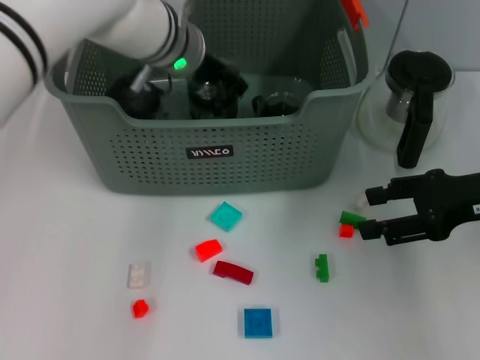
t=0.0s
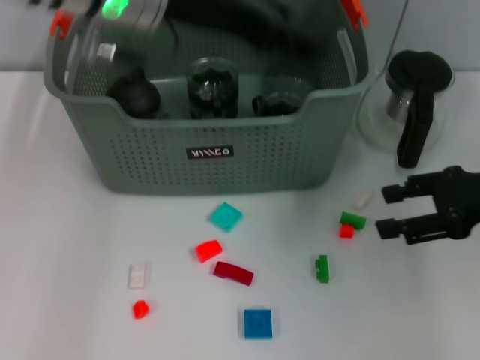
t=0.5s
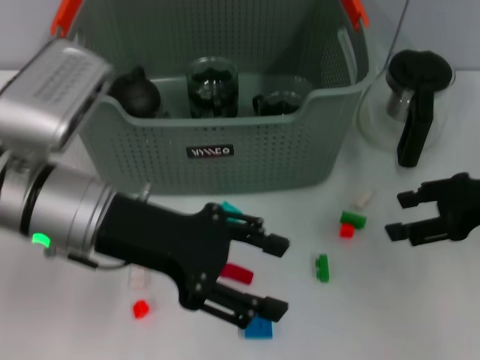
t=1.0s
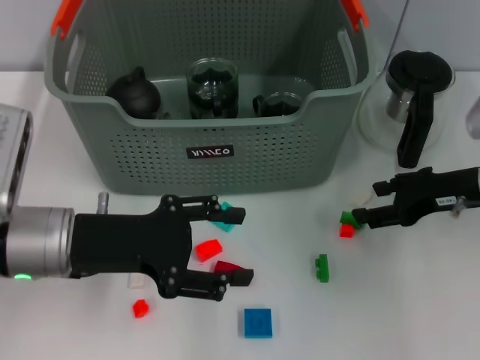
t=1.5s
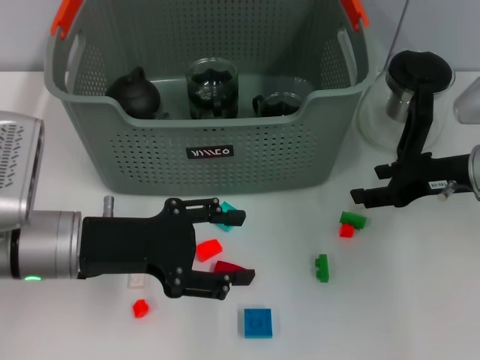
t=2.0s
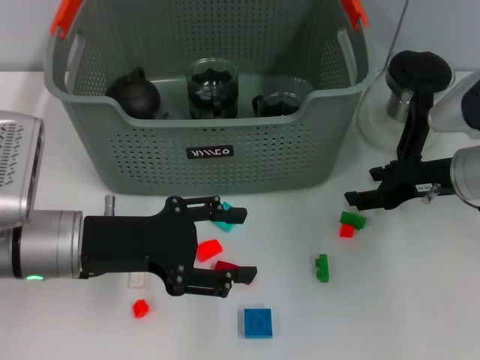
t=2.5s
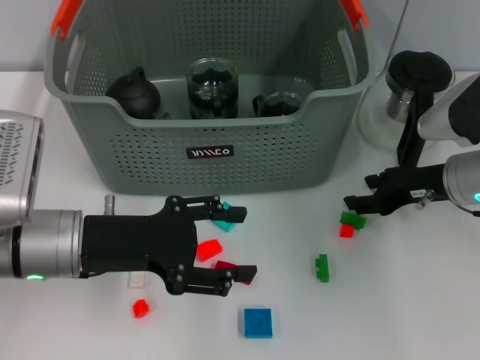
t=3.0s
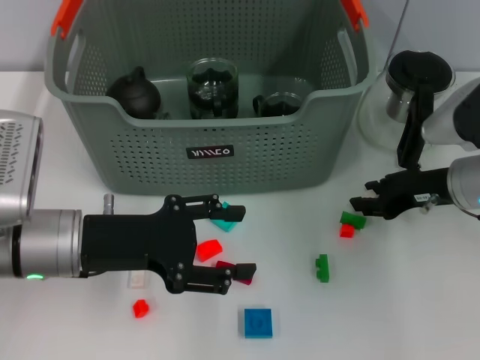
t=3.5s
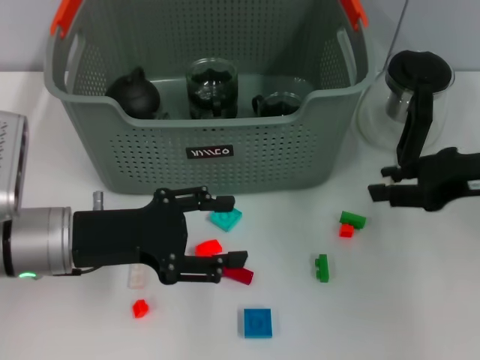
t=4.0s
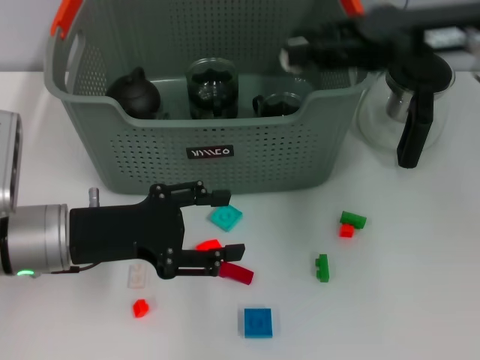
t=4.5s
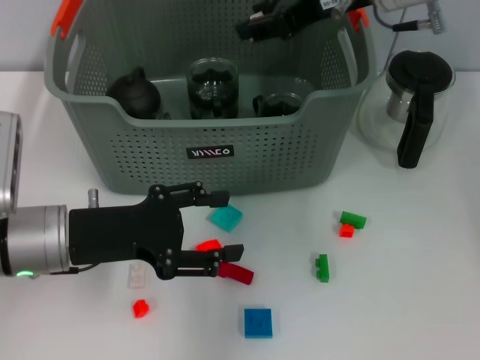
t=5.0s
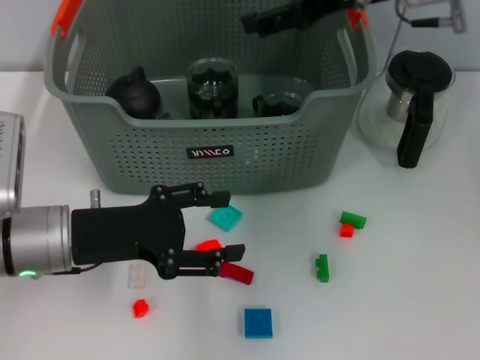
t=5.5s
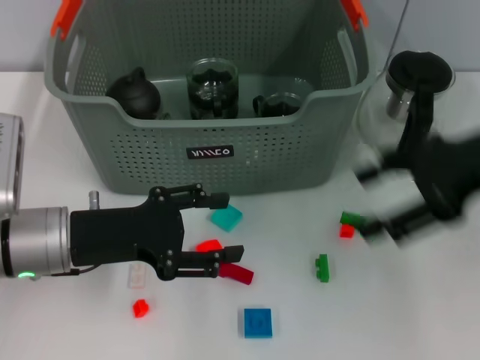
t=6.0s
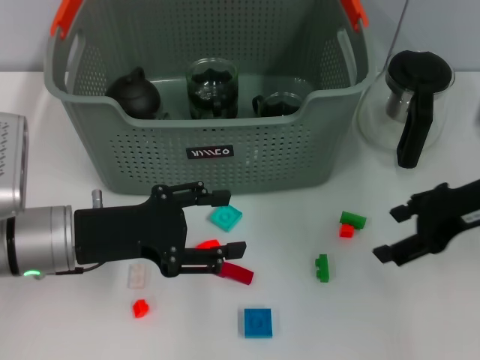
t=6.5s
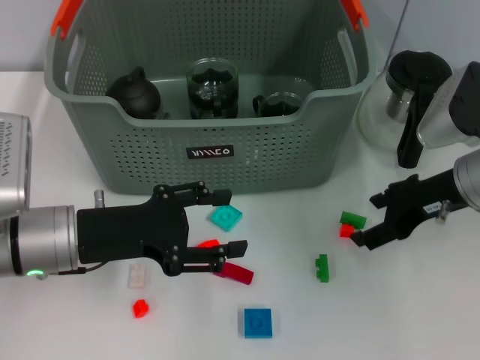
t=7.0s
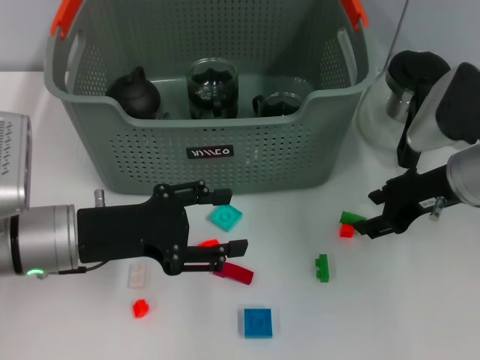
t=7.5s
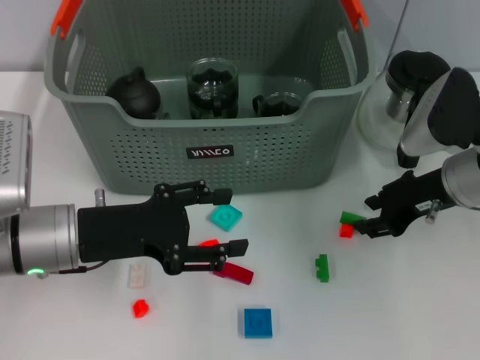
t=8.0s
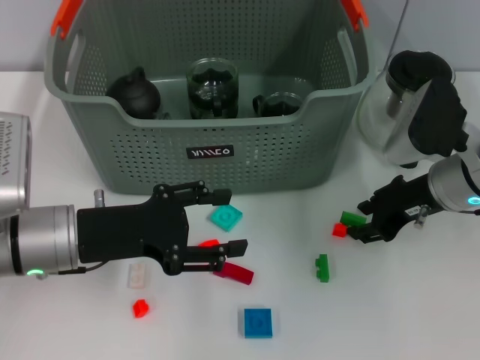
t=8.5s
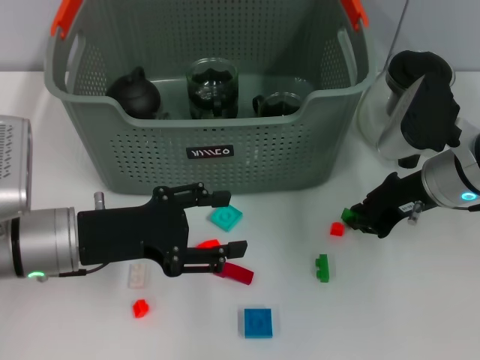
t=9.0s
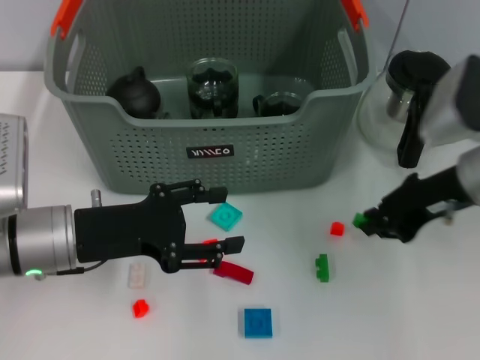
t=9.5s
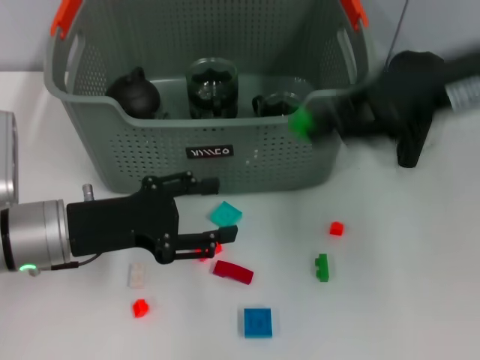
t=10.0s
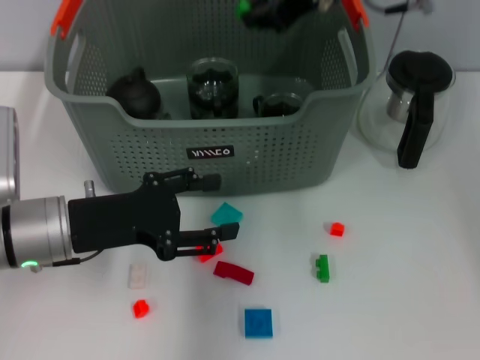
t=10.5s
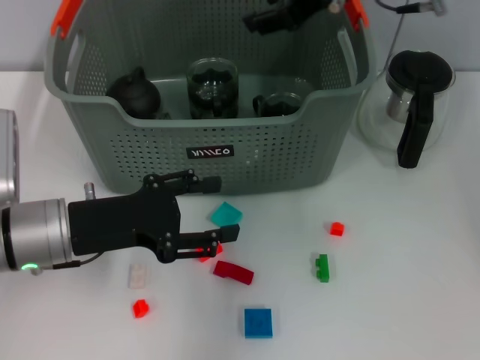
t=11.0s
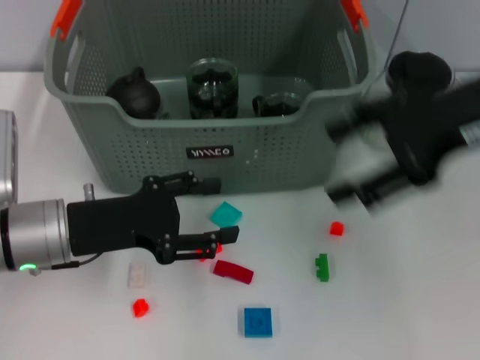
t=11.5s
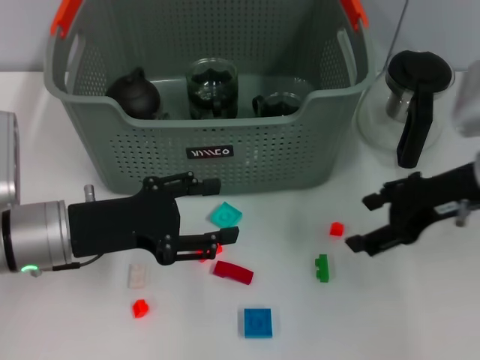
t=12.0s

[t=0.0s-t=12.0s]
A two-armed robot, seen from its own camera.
Task of the whole recording: pick up the teacup on the table and place it into the storage bin, pick up the block on the table and place it into the storage bin.
Step, t=0.5s to t=3.0s: Grasp the white block with right gripper.
Step, t=3.5s to t=5.0s: Place the white block in the storage box with right gripper.
Step, t=5.5s to t=9.0s: Grasp the green block with right gripper.
Step, t=9.5s to t=10.5s: Place the green block in the storage box with right gripper.
t=0.0s to t=2.0s: The left gripper goes some 25 cm backward, to the left and downward, and opens up, while the right gripper moves approximately 5 cm.
t=2.0s to t=4.0s: The right gripper travels upward by about 5 cm, and closes its fingers.
t=4.0s to t=6.0s: The right gripper heads upward, covering some 10 cm, reaches roughly 15 cm to the left, then returns, and opens its fingers.
t=6.0s to t=8.0s: The right gripper is displaced downward by approximately 10 cm, and closes.
t=8.0s to t=10.0s: The right gripper moves upward, about 15 cm, and closes up.
t=10.0s to t=12.0s: The right gripper shifts roughly 10 cm downward, moves approximately 10 cm forward and comes back, and opens.

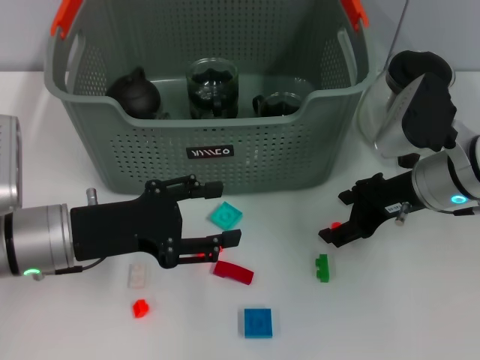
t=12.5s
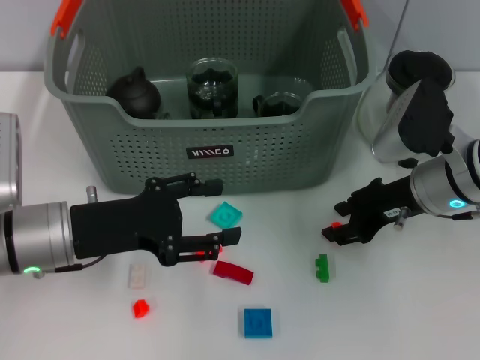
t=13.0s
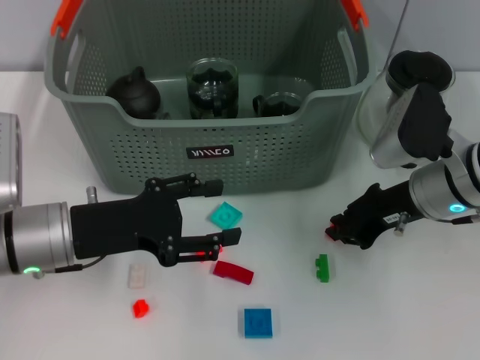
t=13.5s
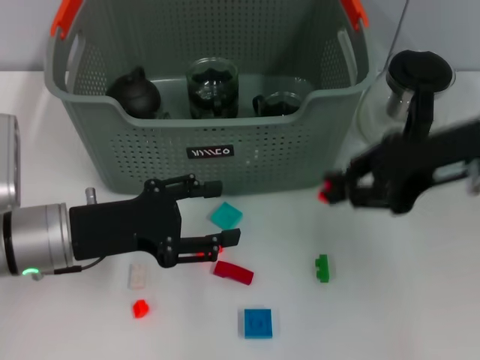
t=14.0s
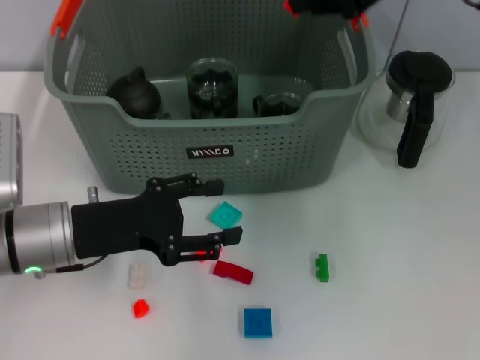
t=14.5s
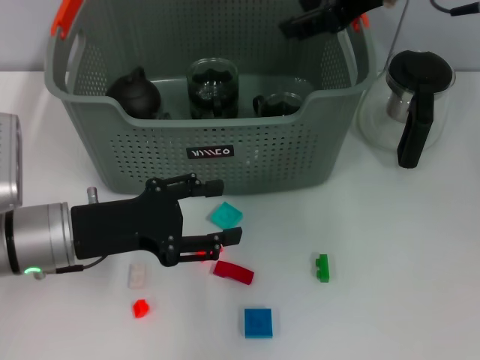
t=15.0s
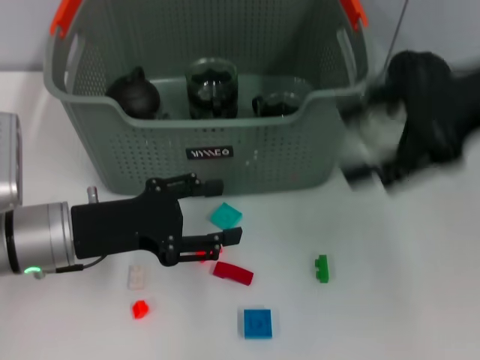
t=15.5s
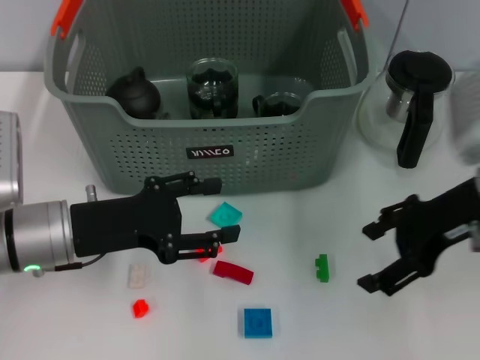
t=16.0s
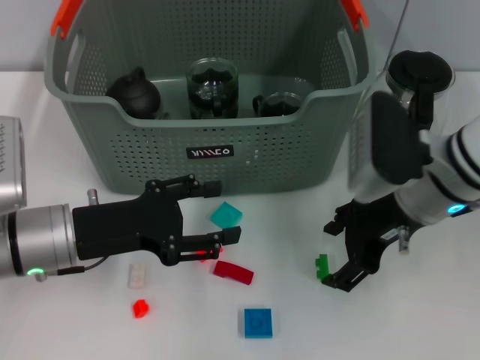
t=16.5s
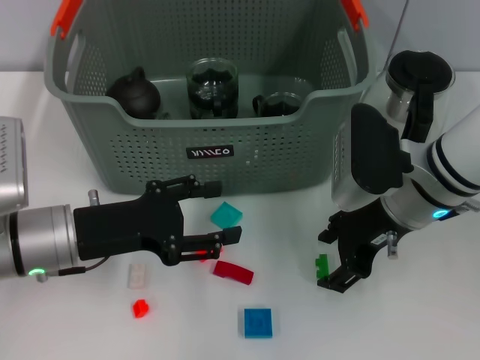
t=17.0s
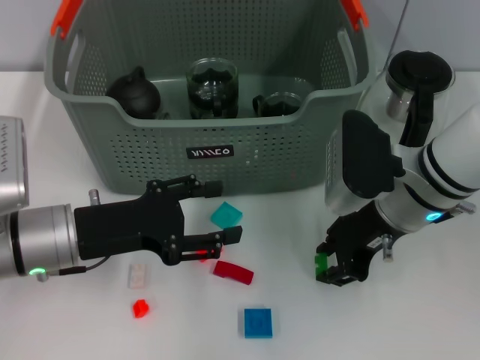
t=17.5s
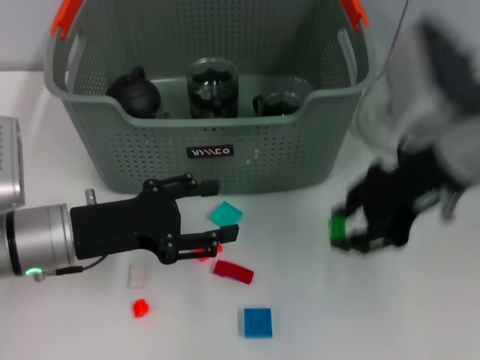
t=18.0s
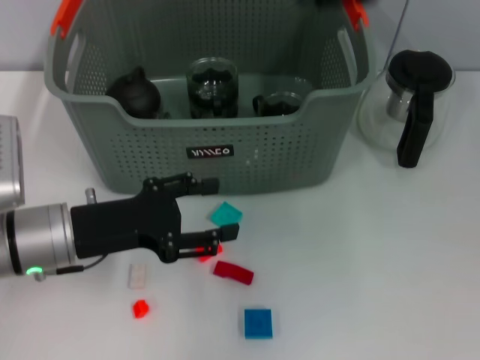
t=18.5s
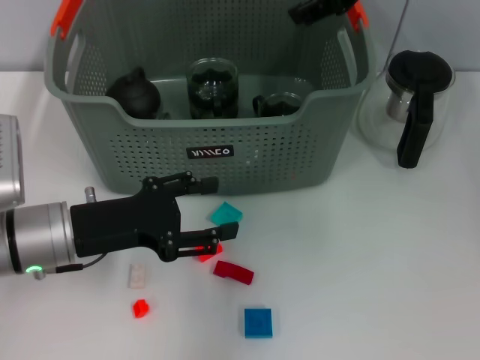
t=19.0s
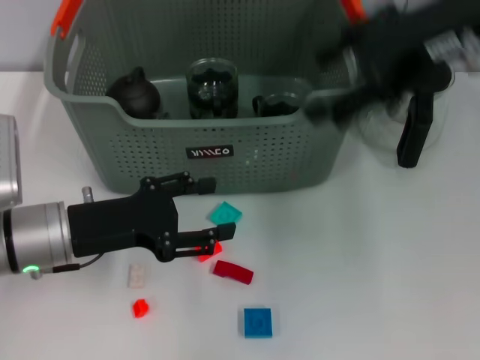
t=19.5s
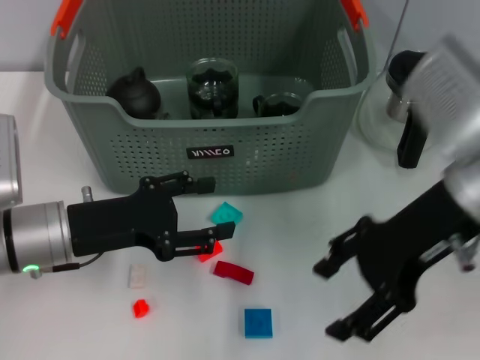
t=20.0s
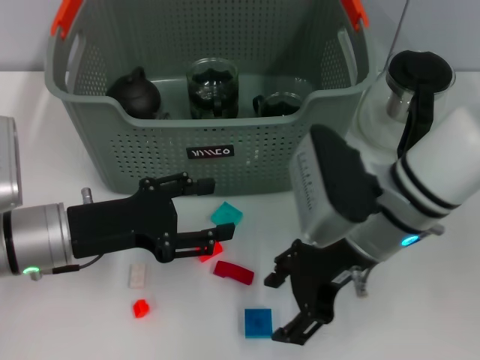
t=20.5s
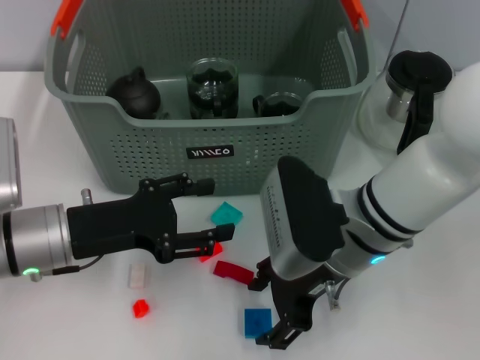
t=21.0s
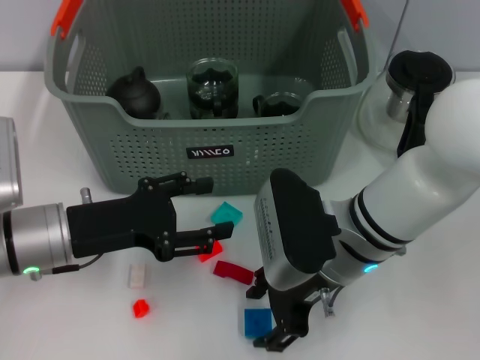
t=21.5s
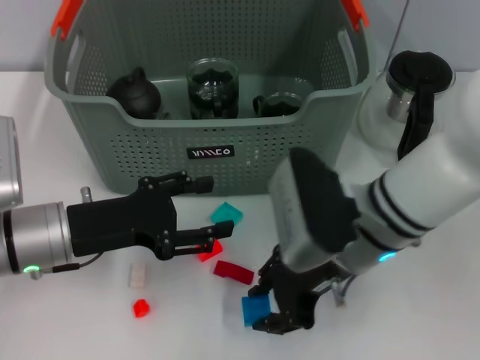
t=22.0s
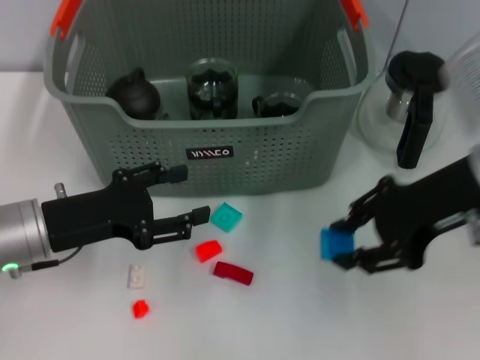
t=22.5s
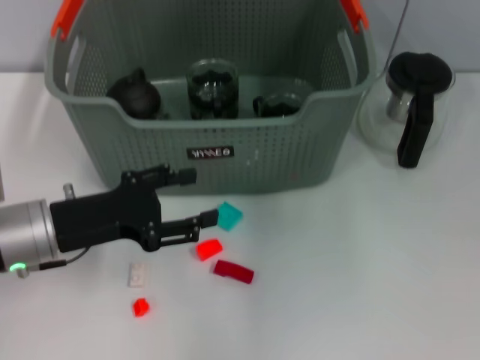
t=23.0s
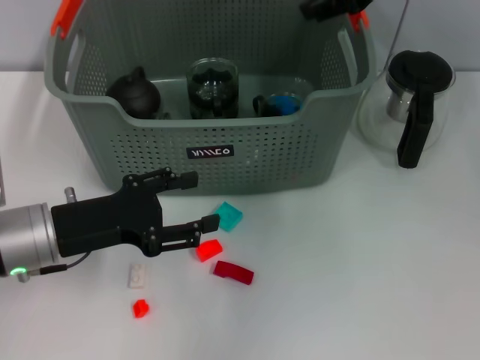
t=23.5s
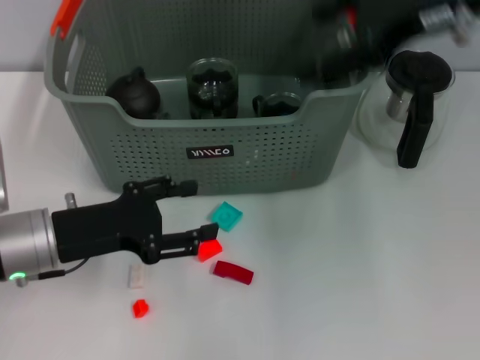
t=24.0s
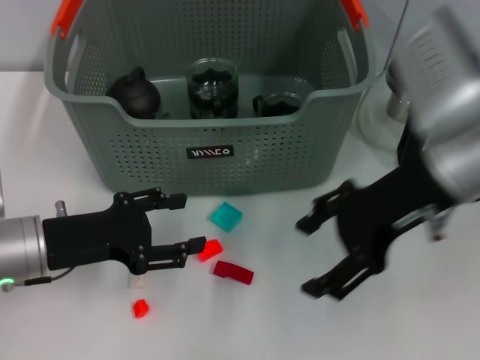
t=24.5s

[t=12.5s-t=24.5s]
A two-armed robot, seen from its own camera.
Task of the whole recording: pick up the teacup on the table and place it into the storage bin, pick up the block on the table and place it into the storage bin.
Step, t=14.0s to t=14.5s: Place the orange block in the storage box with right gripper.
Step, t=15.5s to t=17.5s: Grasp the green block with right gripper.
Step, t=18.0s to t=19.0s: Place the green block in the storage box with right gripper.
Step, t=19.5s to t=21.5s: Grasp the dark blue block with right gripper.
Step, t=22.0s to t=23.5s: Place the dark blue block in the storage box with right gripper.
t=12.5s to t=14.5s: The right gripper travels upward by approximately 20 cm, and closes its fingers.
t=14.5s to t=16.5s: The right gripper shifts some 20 cm downward, and opens up.
t=16.5s to t=18.5s: The right gripper heads upward, covering some 20 cm, and closes its fingers.
t=18.5s to t=20.5s: The right gripper shifts about 20 cm downward, and opens.
t=20.5s to t=22.5s: The right gripper is displaced to the right and upward by about 10 cm, and closes up.
t=22.5s to t=24.5s: The right gripper goes upward and returns, approximately 15 cm each way, and opens.

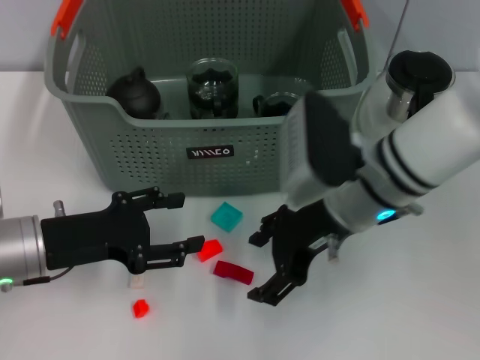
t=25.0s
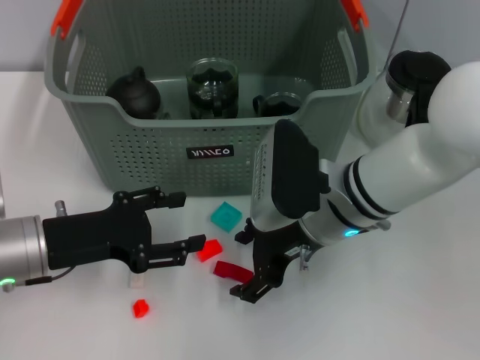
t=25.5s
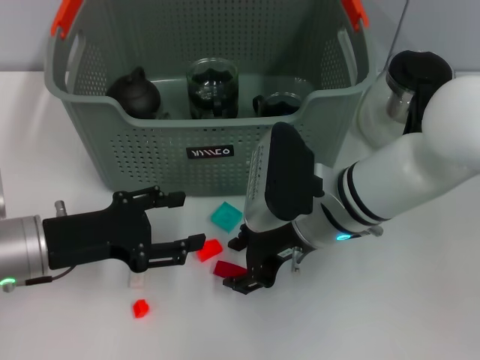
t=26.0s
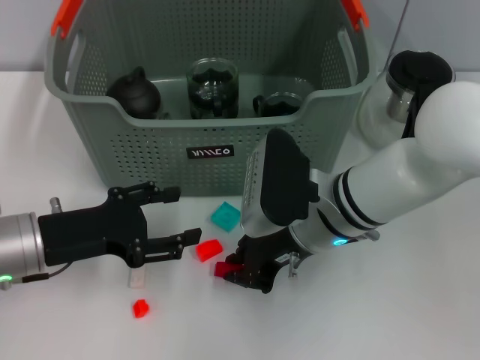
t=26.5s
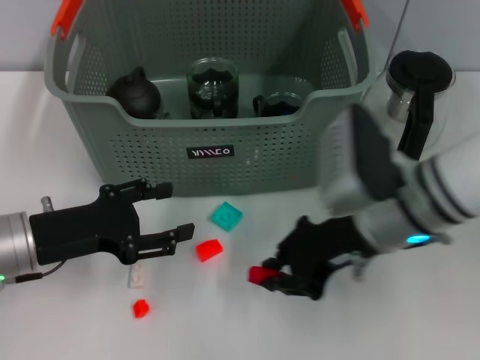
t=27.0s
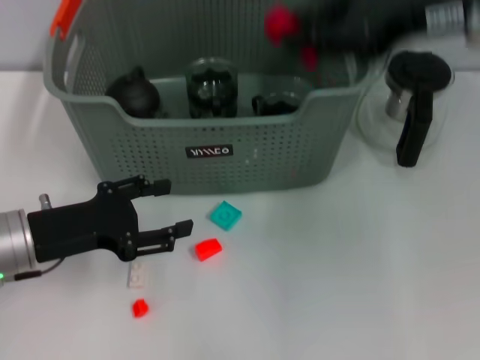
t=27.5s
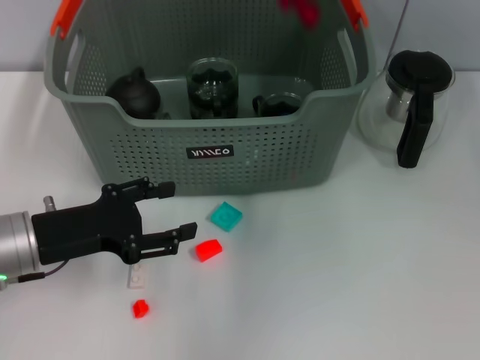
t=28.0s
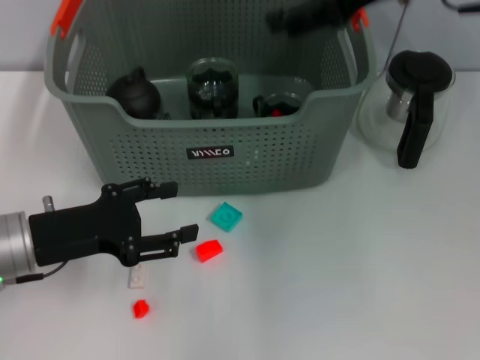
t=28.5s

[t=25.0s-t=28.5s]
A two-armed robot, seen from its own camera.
Task of the whole recording: pick up the teacup on the table and place it into the storage bin, pick up the block on the table and place it into the storage bin.
Step, t=26.5s to t=28.0s: Place the red block in the storage box with right gripper.
t=25.0s to t=27.0s: The right gripper closes.
t=27.0s to t=28.5s: The right gripper heads upward and forward, covering about 20 cm, and opens up.
